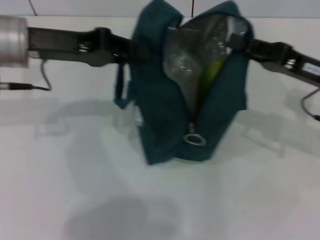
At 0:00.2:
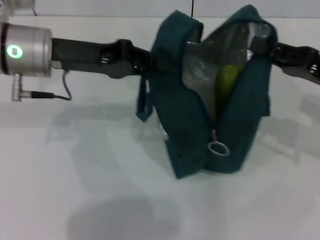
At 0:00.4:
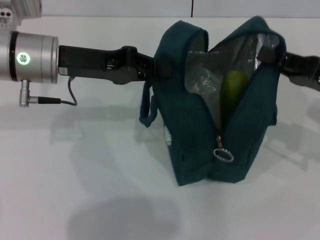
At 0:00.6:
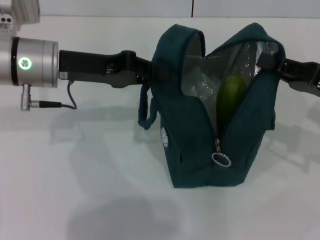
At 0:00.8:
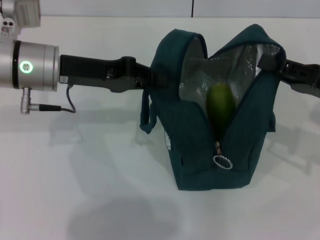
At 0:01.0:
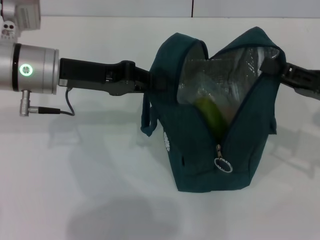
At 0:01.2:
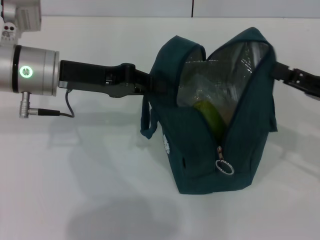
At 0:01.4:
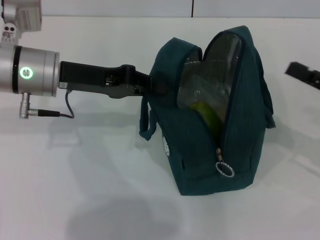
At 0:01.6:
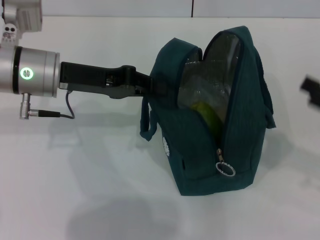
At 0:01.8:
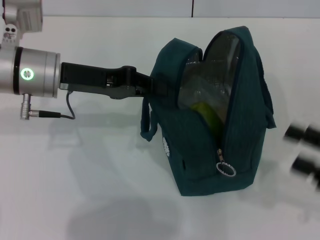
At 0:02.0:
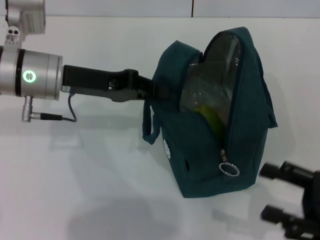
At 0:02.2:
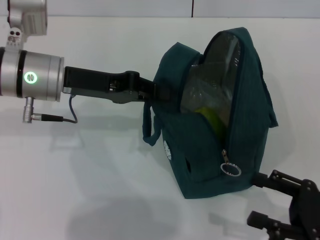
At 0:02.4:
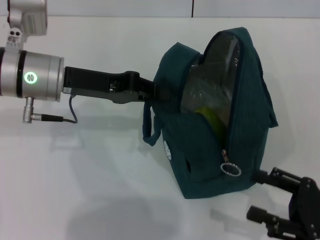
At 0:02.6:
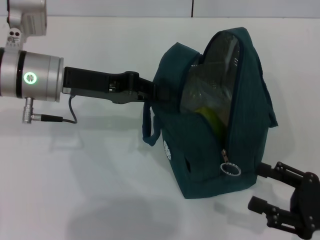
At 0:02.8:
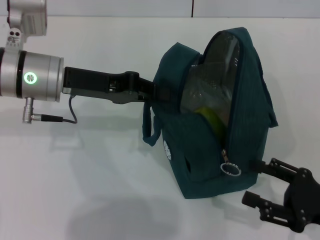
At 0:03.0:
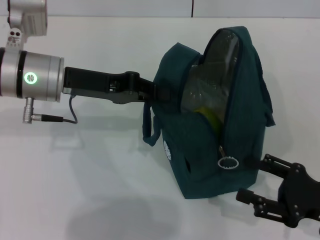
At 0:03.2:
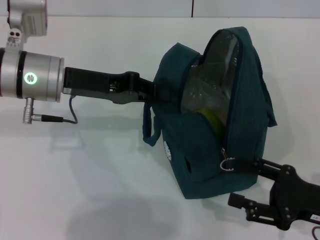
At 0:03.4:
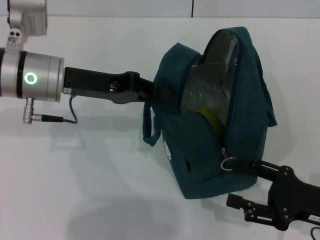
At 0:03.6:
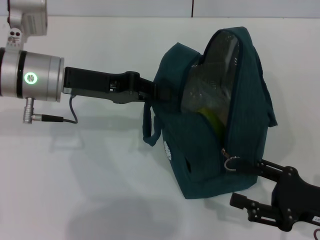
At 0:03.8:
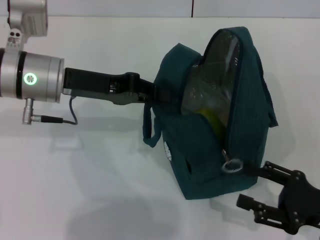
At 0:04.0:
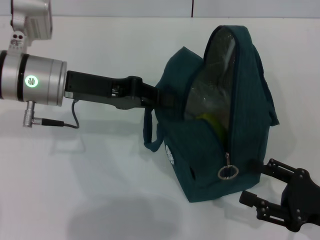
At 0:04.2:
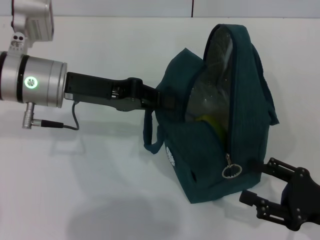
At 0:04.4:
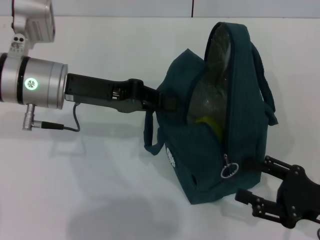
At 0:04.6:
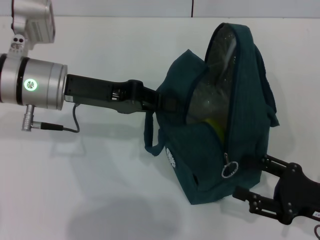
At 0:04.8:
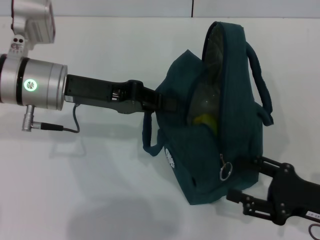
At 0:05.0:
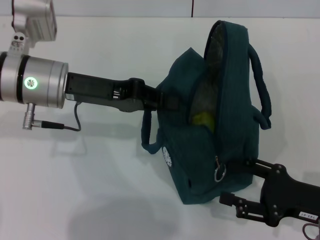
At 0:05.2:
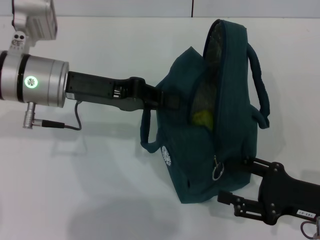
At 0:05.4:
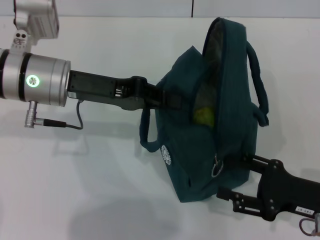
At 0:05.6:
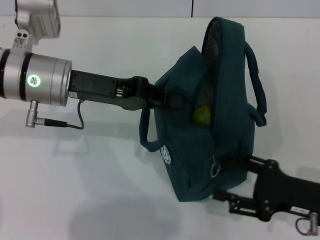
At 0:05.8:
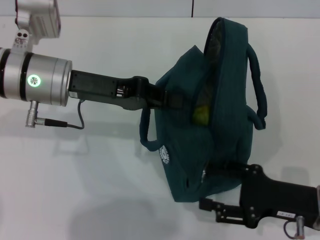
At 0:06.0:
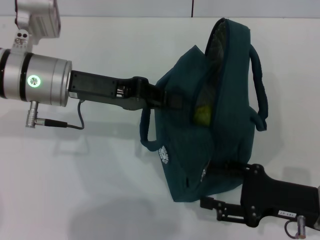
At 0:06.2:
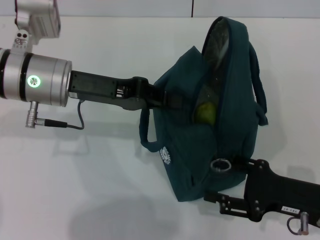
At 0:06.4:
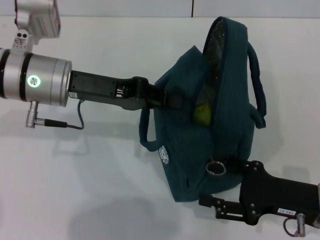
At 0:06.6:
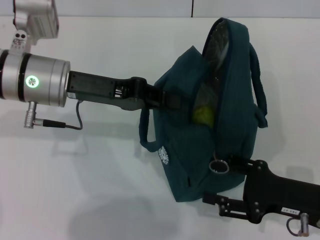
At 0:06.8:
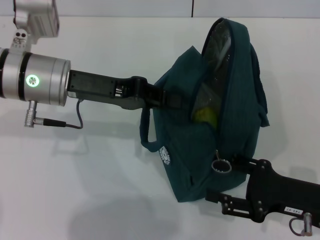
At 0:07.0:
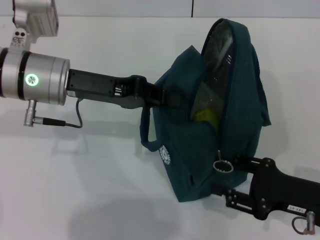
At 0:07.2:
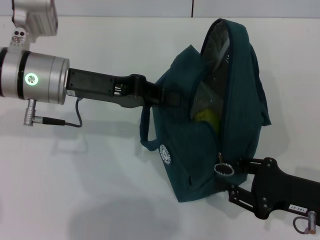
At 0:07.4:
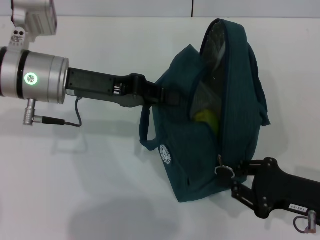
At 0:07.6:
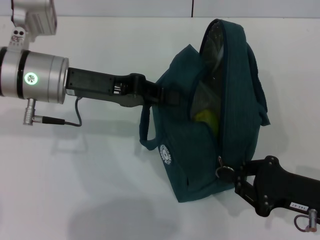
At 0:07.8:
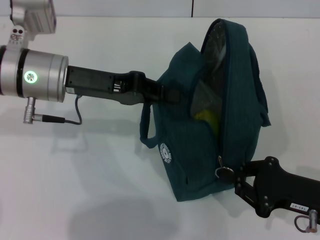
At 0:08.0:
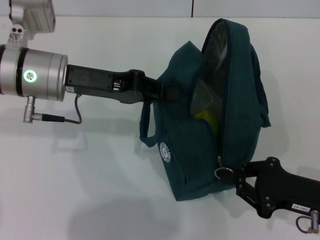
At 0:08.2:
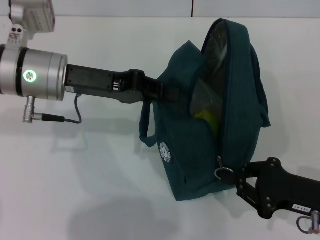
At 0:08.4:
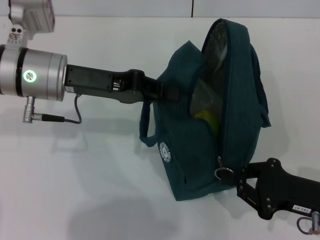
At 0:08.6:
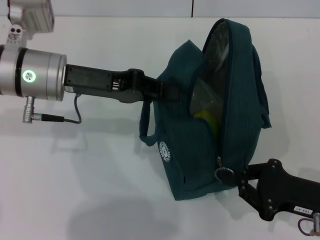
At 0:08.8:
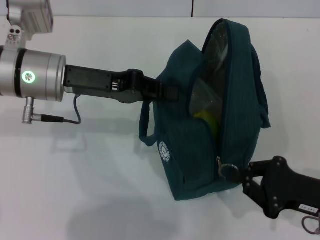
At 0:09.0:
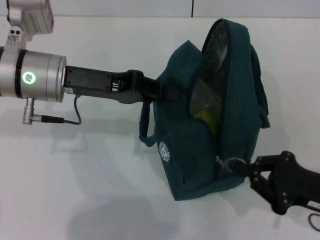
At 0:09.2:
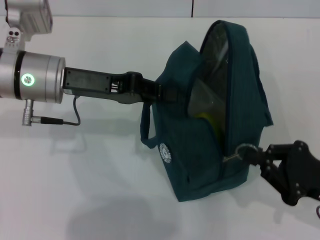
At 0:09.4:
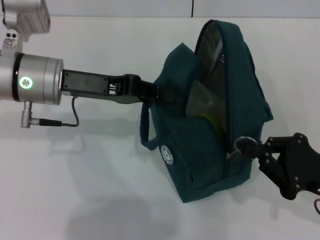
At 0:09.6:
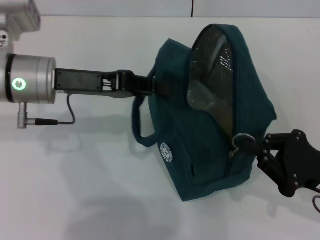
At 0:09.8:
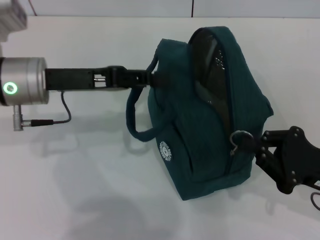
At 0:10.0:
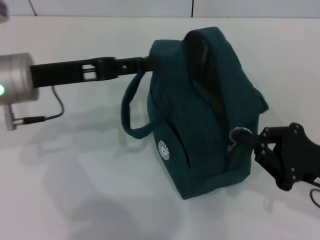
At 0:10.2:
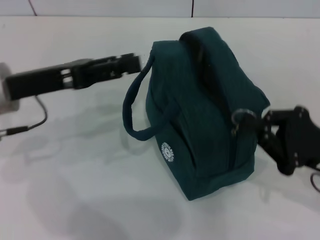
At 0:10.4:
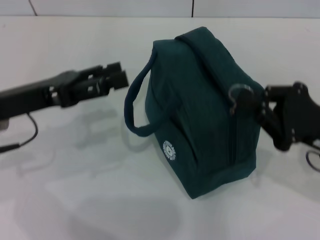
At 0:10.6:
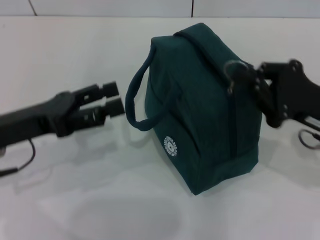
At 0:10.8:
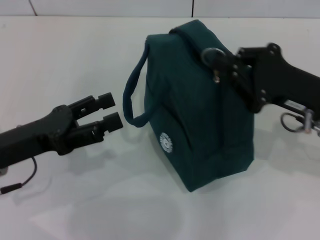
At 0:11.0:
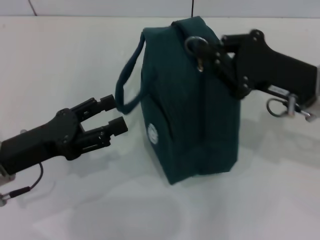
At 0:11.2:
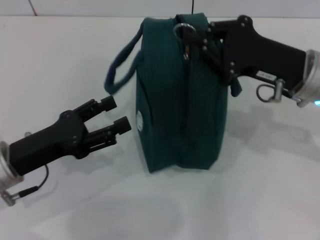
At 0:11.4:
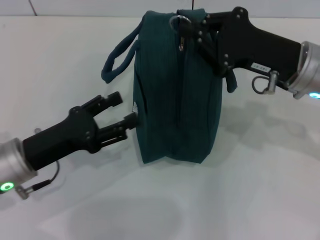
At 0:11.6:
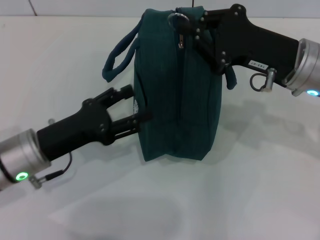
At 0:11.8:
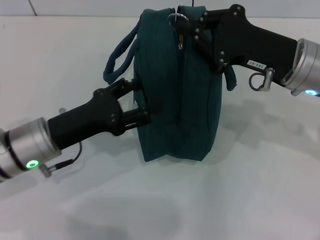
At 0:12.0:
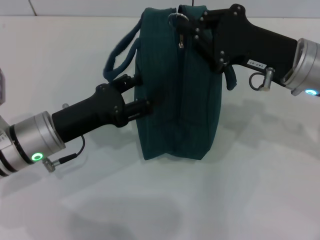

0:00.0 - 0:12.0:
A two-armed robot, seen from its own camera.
Step, 0:00.0 - 0:01.4: Hold the lunch bag with your right hand.
Step, 0:01.6 - 0:09.8: Hold the lunch bag with your left hand.
0:00.0 - 0:01.6: The right gripper shifts roughly 10 cm to the right and backward, and opens.
0:01.6 - 0:03.0: The right gripper heads downward and to the left, covering approximately 10 cm.
0:03.0 - 0:04.4: Both grippers stay put.
0:04.4 - 0:06.0: The grippers move only a little.
0:06.0 - 0:07.6: The right gripper closes.
0:07.6 - 0:09.0: The grippers make only small movements.
0:09.0 - 0:10.4: The right gripper is displaced upward by approximately 5 cm. Meanwhile the left gripper goes some 10 cm to the left and backward, and opens up.
0:10.4 - 0:12.0: The right gripper moves forward, to the left and upward, some 10 cm. Meanwhile the left gripper moves downward and to the right, about 10 cm.

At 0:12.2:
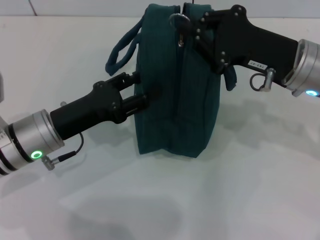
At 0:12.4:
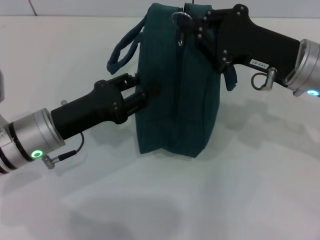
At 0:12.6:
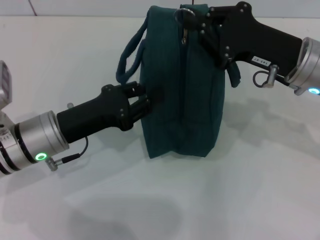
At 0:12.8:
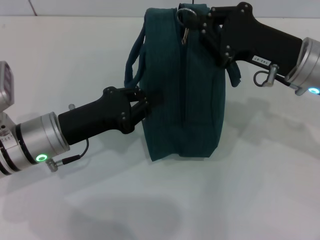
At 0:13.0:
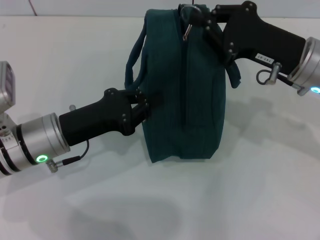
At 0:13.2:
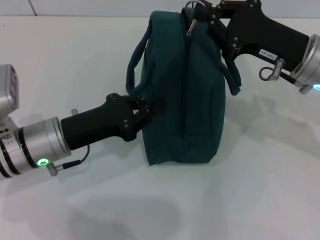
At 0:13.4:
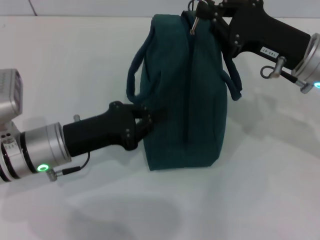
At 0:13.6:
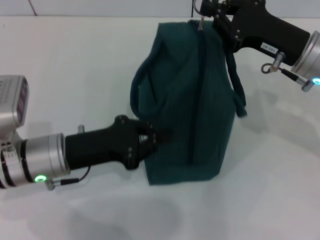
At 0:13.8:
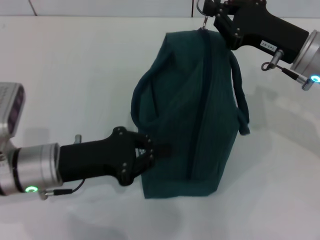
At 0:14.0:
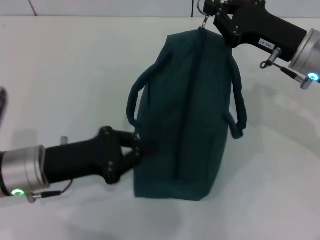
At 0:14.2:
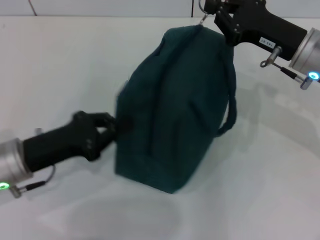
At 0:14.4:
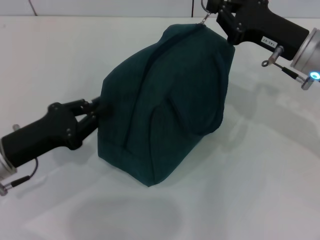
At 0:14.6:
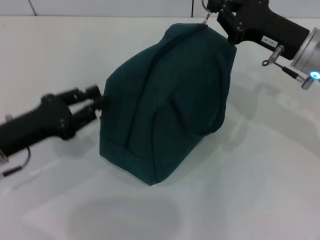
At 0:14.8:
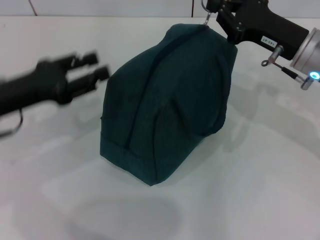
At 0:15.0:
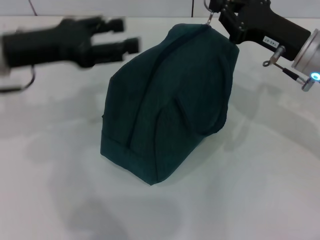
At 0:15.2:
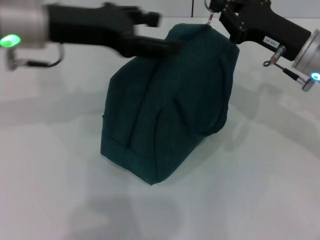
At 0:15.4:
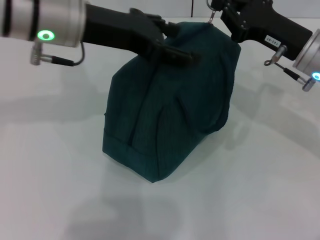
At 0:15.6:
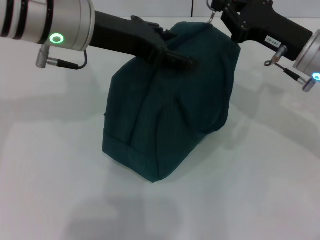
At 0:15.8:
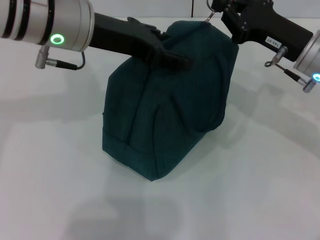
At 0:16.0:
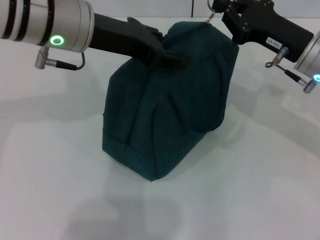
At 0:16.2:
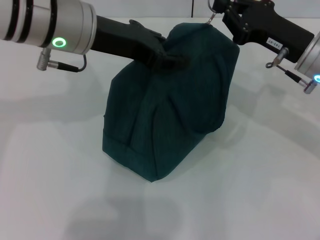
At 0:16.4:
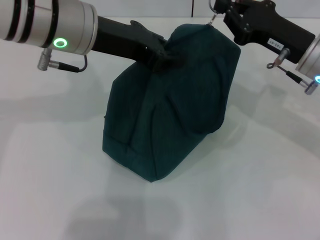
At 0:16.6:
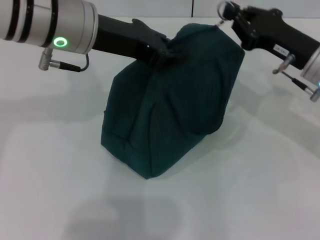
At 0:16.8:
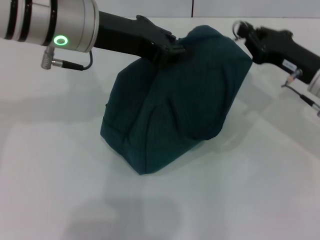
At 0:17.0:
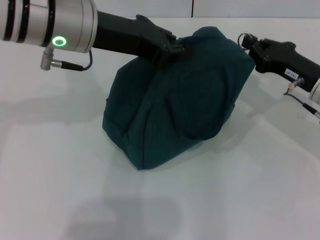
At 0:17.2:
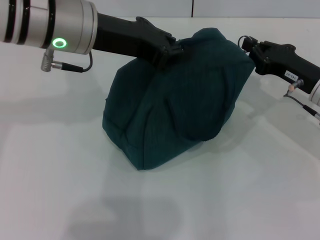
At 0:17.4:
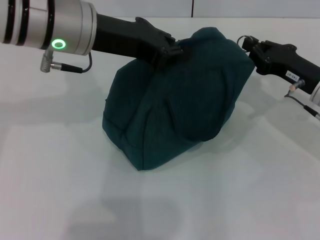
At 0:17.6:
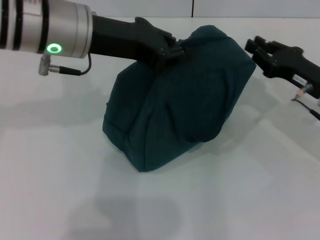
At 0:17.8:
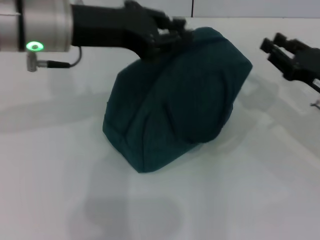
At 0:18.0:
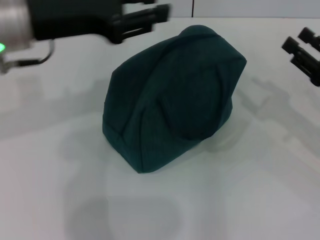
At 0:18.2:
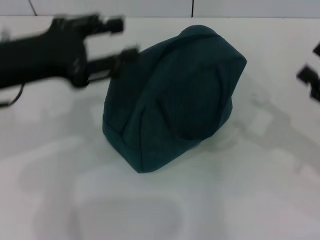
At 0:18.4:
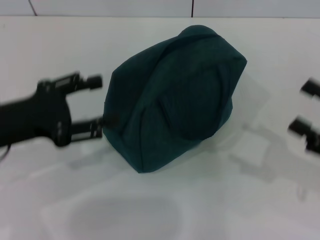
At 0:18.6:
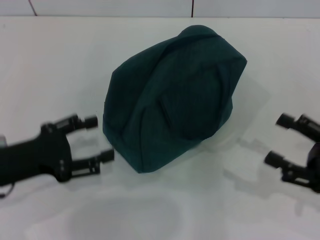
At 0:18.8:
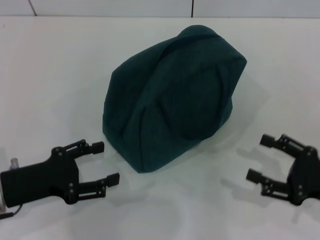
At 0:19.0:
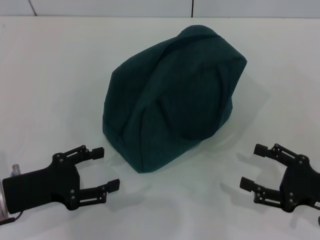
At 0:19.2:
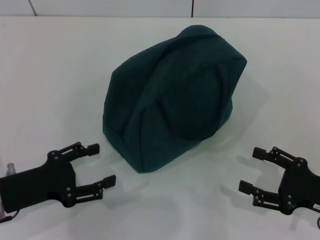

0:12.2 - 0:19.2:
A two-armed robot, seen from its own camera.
Step, 0:12.2 - 0:17.4: Zip up the lunch bag with your right hand.
Step, 0:17.6 - 0:17.8: Hold the lunch bag with your left hand.
0:12.2 - 0:13.6: The left gripper closes.
0:13.6 - 0:15.0: The left gripper heads upward and forward, covering approximately 15 cm, and opens.
0:15.0 - 0:16.4: The left gripper moves to the right, approximately 10 cm, and opens, then closes once more.
0:16.4 - 0:17.8: The right gripper goes about 10 cm to the right and downward.
0:17.8 - 0:19.2: The left gripper moves downward, backward and to the left, some 25 cm, and opens its fingers; the right gripper goes about 15 cm backward and downward, and opens.
